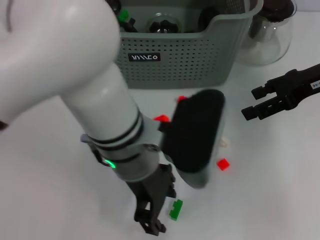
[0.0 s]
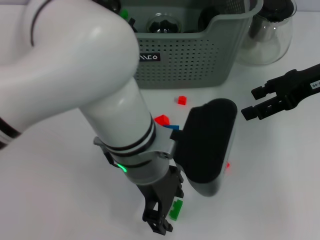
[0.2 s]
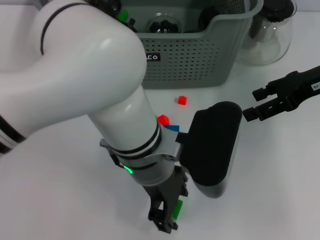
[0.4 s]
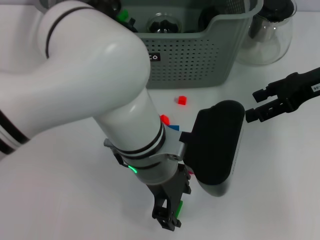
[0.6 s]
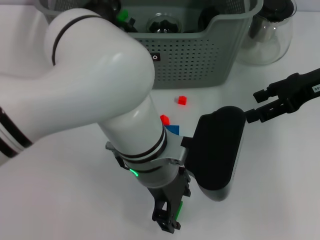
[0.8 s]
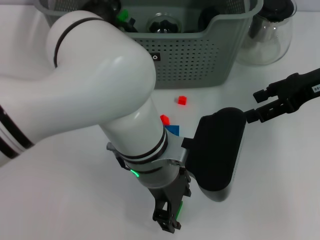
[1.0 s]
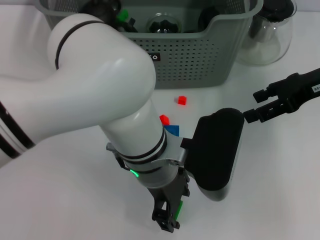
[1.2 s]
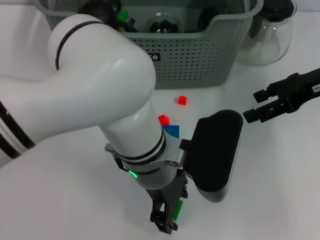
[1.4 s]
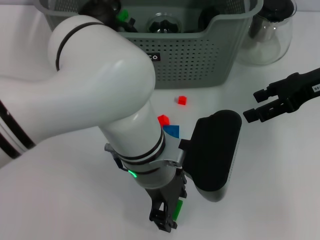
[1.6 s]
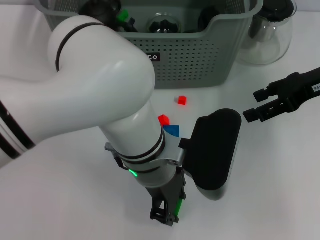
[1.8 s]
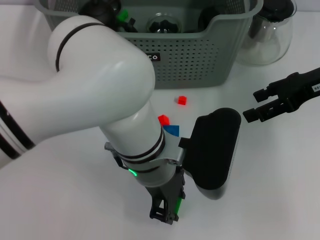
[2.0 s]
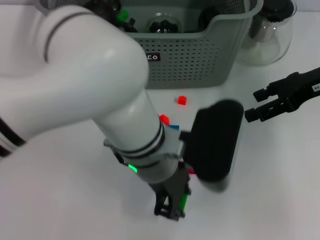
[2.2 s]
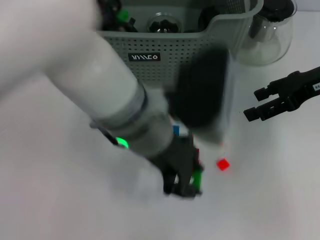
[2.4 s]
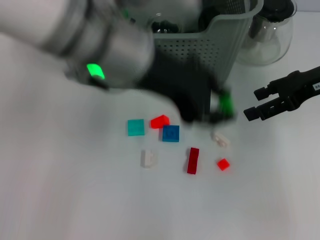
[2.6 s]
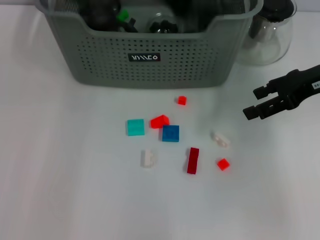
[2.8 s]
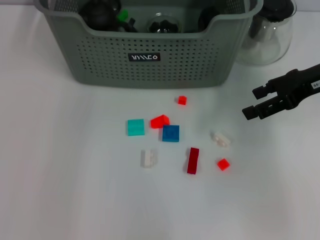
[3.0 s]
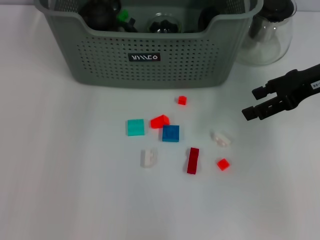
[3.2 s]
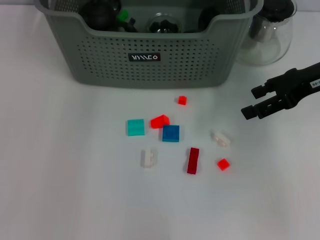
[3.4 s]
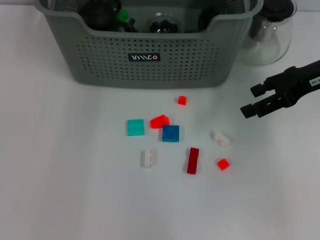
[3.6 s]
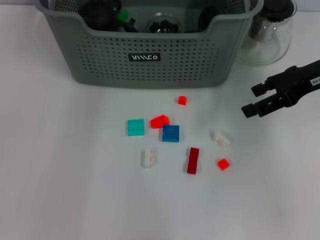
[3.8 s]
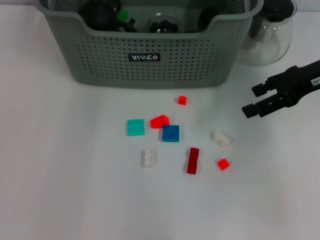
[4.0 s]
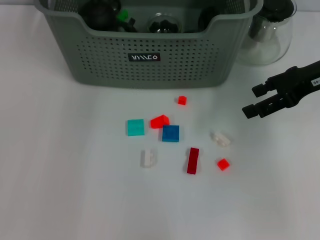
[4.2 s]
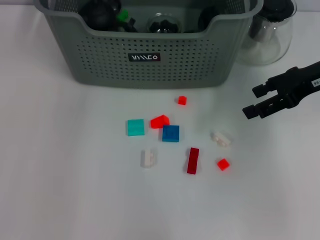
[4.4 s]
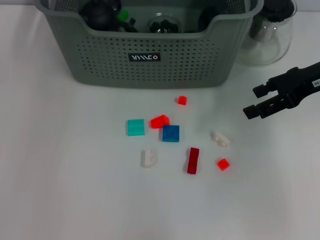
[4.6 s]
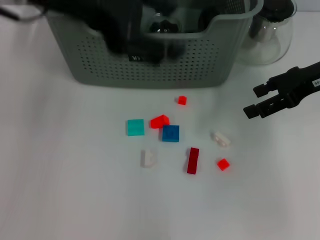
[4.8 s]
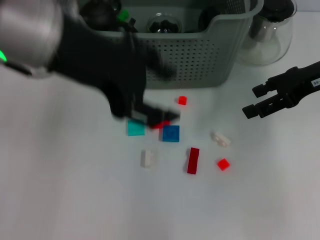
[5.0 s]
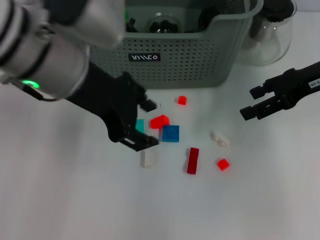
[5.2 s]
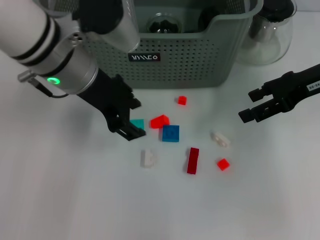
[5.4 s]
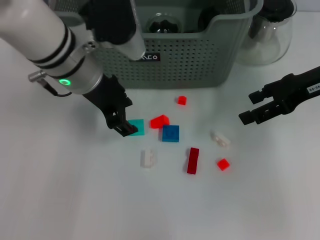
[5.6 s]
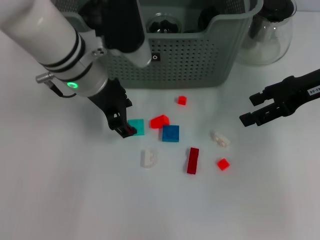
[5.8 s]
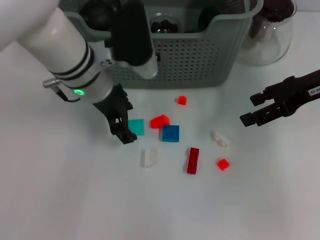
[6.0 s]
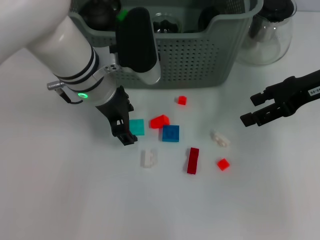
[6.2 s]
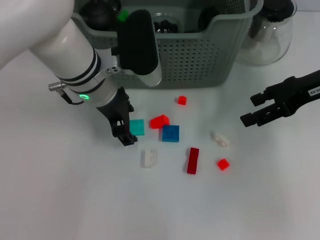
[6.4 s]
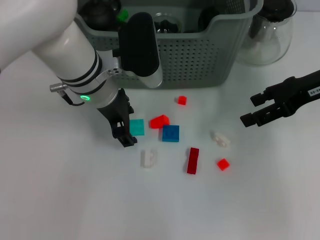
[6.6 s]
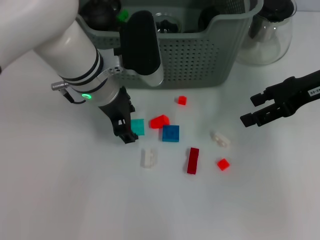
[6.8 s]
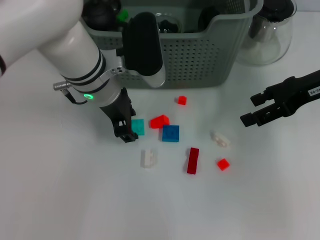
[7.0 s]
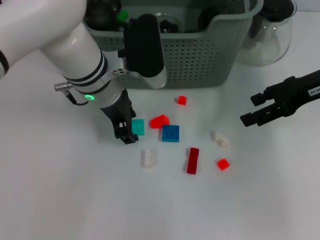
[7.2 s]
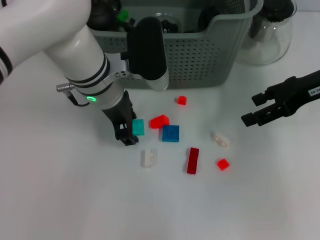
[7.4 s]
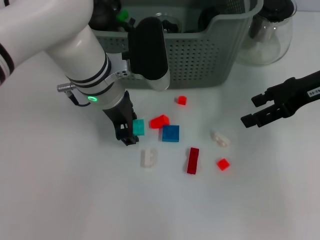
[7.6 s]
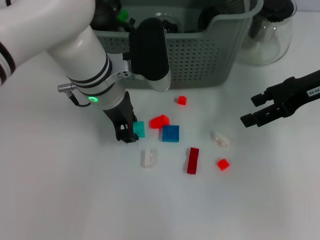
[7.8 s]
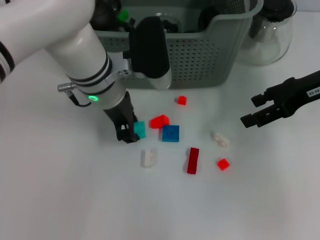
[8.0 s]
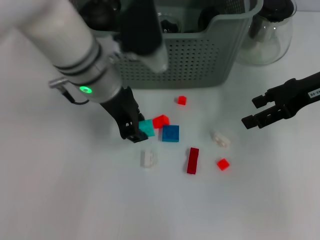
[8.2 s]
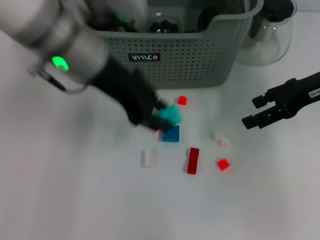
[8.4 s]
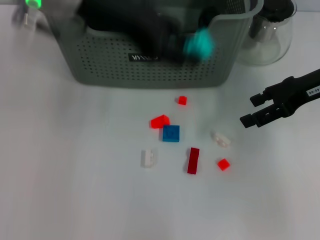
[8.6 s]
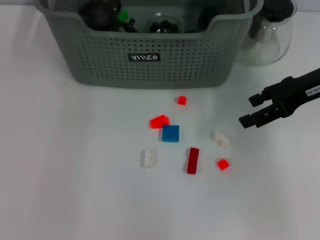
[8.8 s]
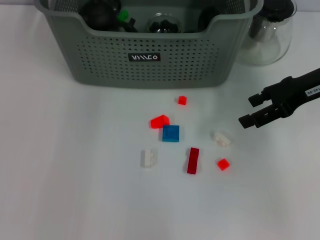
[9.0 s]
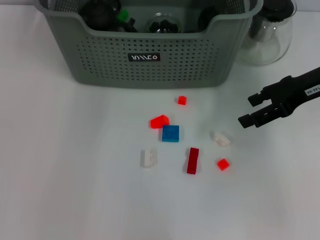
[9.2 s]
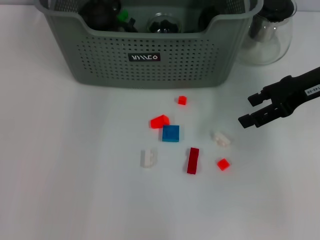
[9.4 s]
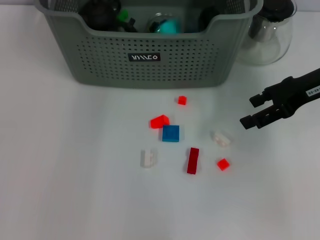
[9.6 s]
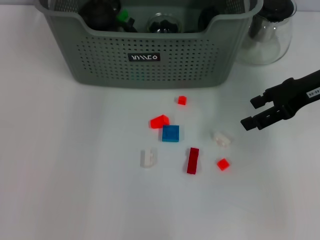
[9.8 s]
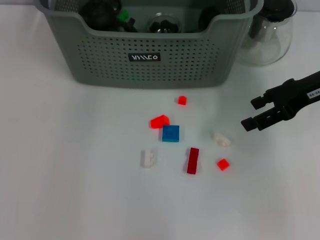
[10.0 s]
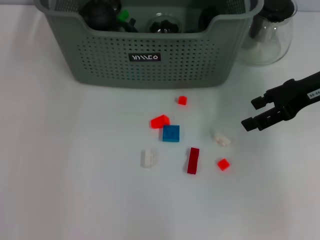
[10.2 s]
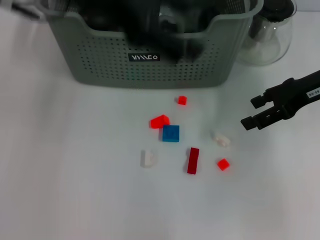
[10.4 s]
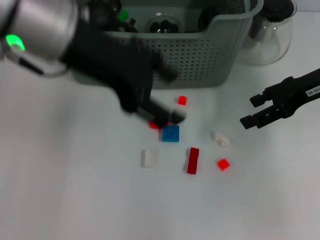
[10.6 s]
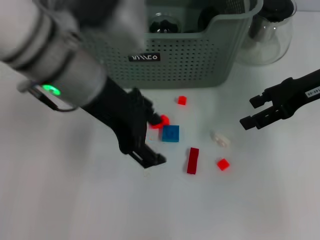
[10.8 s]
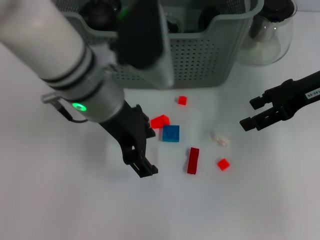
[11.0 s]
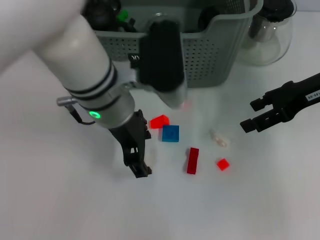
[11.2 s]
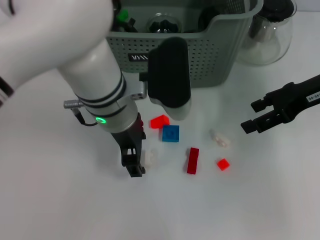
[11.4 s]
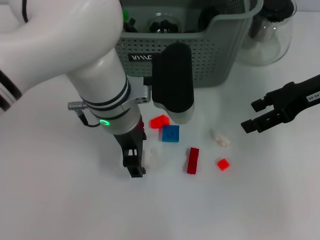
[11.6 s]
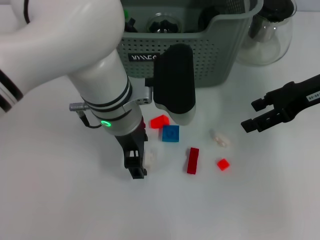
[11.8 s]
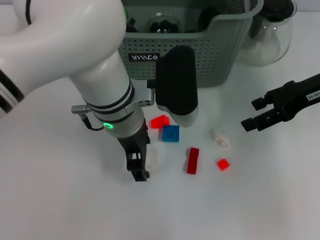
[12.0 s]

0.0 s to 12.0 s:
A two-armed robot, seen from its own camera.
Task of the whole recording: pick up the teacup on the table and place it into the storage bin, pick up the block on the table and place it into the storage bin.
Step, 0.0 to 1.8 s: Grasp the green block with left gripper.
Step, 2.0 to 3.8 s: Place the green block in the storage box with left gripper.
Step, 4.0 to 7.8 s: Grasp the light blue block with left gripper.
Step, 8.0 to 9.6 s: Place the light blue block in the storage box with left gripper.
1.6 to 3.0 s: The left gripper is displaced upward, forward and to the left by some 25 cm.
4.4 to 6.0 s: The left gripper is displaced downward and backward by some 15 cm.
6.0 to 7.6 s: The grippers make only small movements.
7.6 to 9.0 s: The left gripper is displaced upward by approximately 20 cm.
9.0 to 10.4 s: The left gripper is displaced backward by roughly 10 cm, and opens its fingers.
10.4 to 12.0 s: The left gripper goes roughly 20 cm downward and to the right.

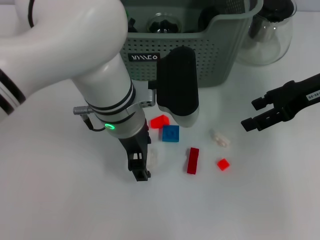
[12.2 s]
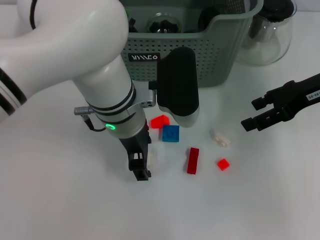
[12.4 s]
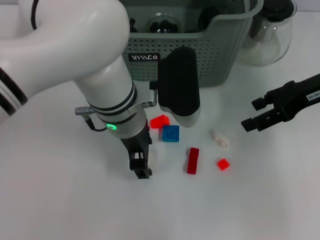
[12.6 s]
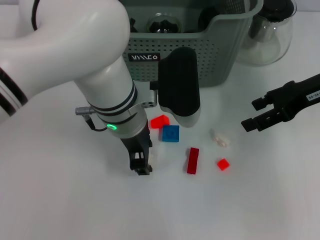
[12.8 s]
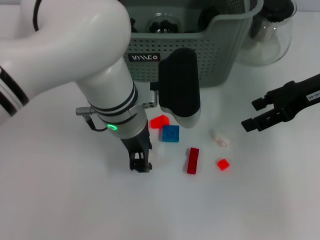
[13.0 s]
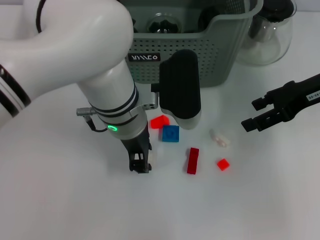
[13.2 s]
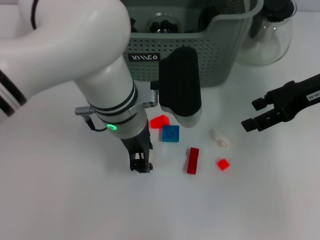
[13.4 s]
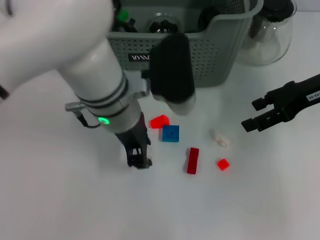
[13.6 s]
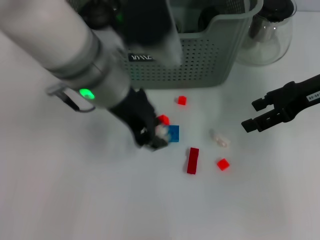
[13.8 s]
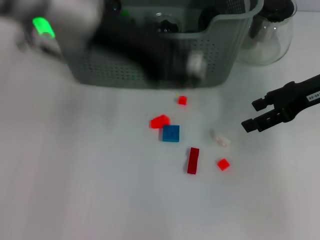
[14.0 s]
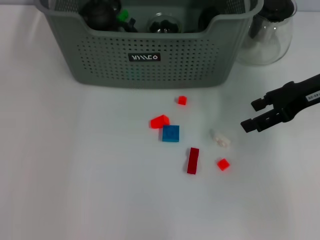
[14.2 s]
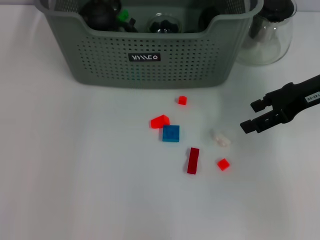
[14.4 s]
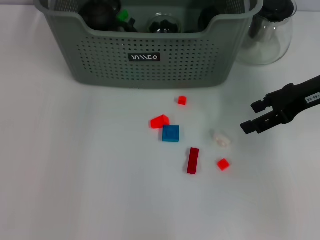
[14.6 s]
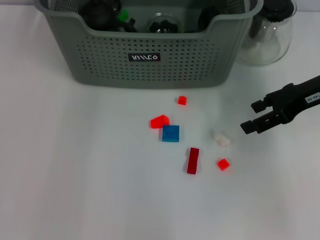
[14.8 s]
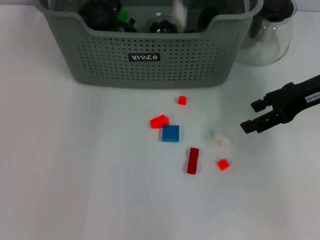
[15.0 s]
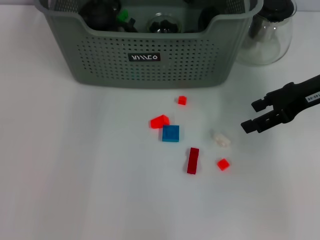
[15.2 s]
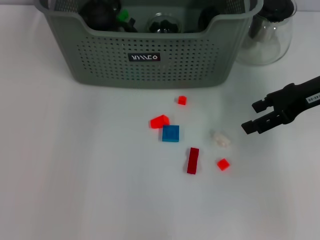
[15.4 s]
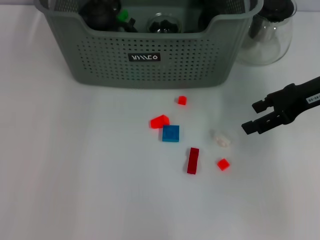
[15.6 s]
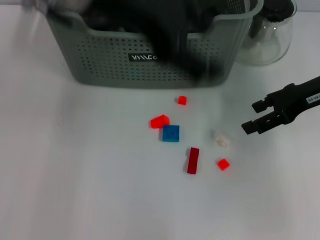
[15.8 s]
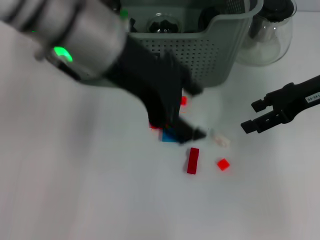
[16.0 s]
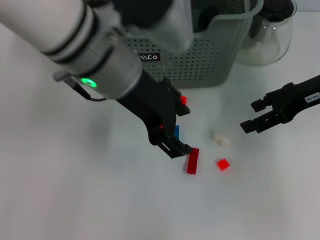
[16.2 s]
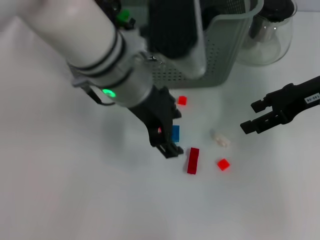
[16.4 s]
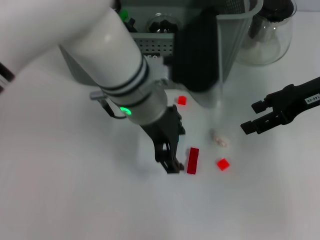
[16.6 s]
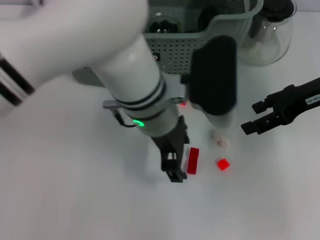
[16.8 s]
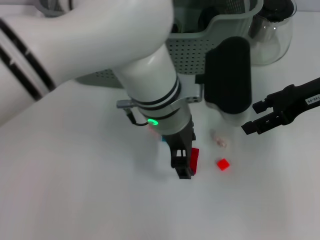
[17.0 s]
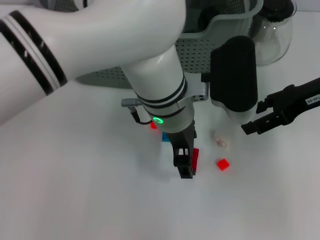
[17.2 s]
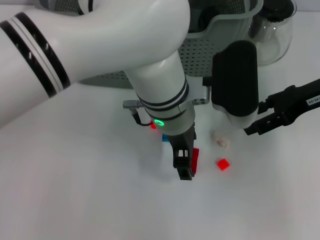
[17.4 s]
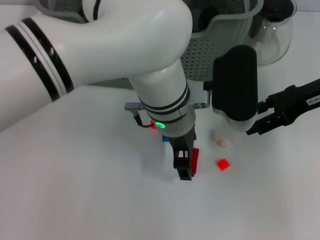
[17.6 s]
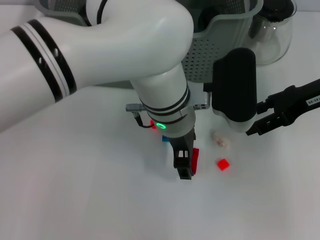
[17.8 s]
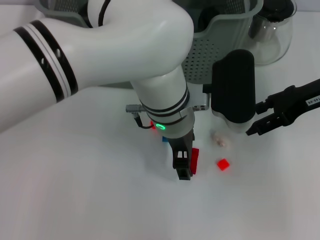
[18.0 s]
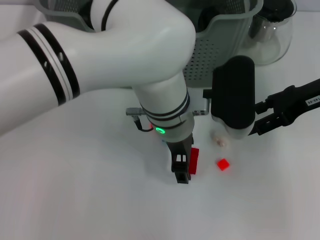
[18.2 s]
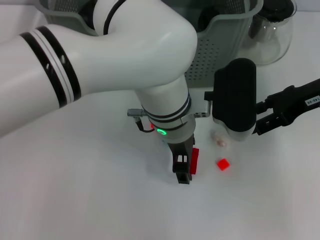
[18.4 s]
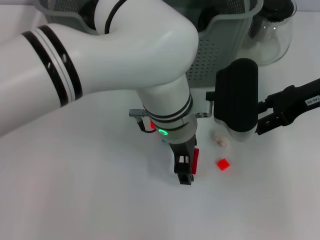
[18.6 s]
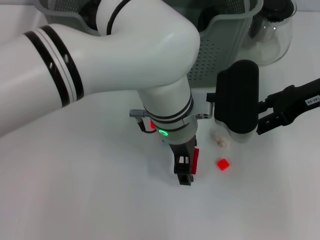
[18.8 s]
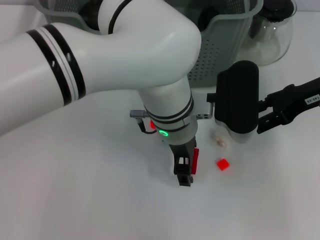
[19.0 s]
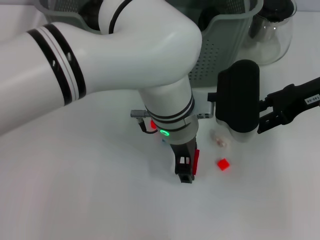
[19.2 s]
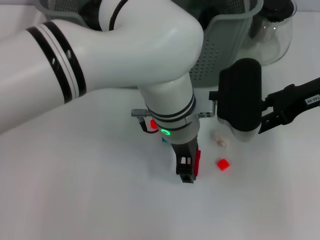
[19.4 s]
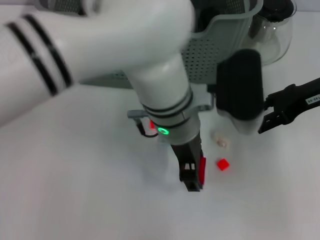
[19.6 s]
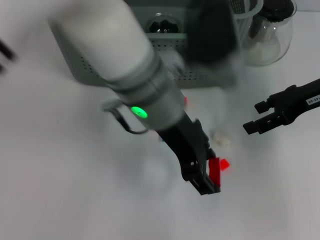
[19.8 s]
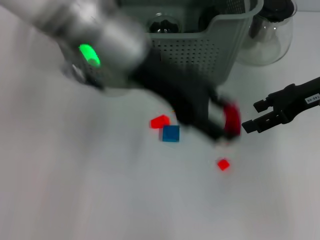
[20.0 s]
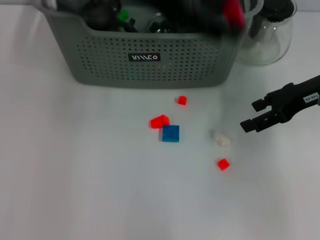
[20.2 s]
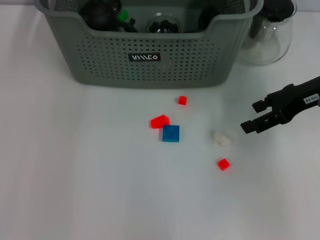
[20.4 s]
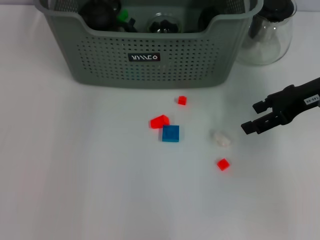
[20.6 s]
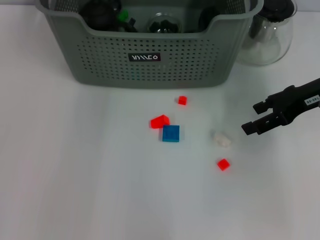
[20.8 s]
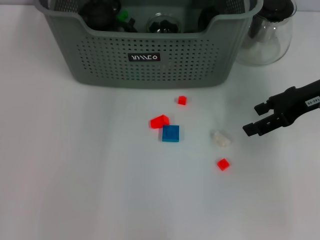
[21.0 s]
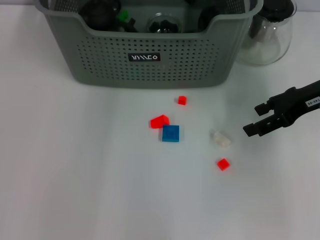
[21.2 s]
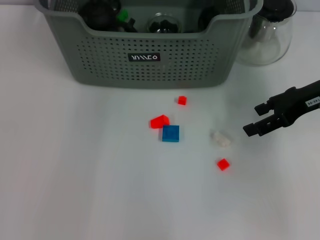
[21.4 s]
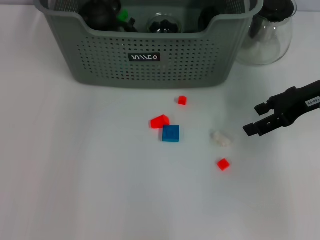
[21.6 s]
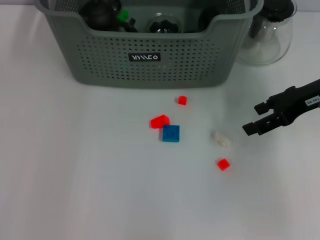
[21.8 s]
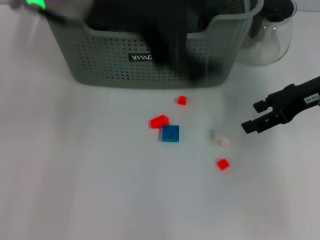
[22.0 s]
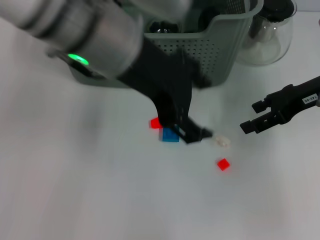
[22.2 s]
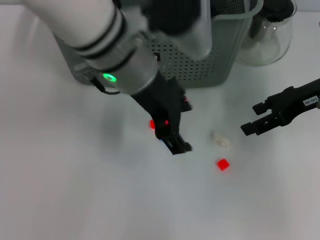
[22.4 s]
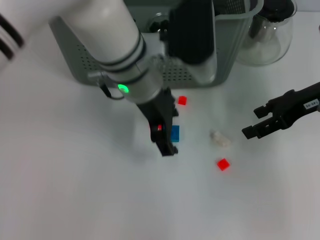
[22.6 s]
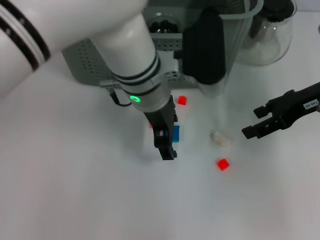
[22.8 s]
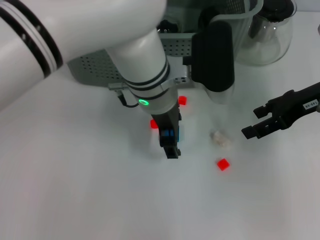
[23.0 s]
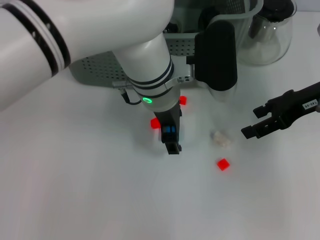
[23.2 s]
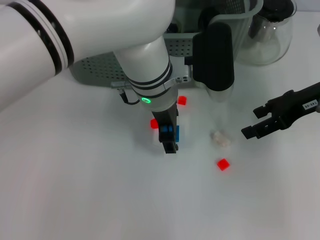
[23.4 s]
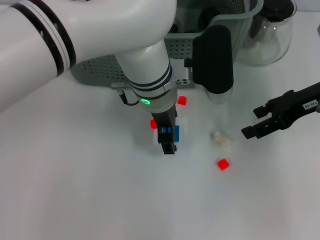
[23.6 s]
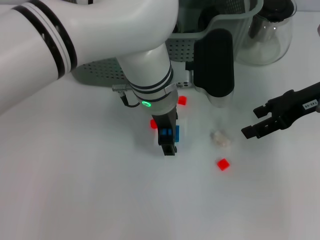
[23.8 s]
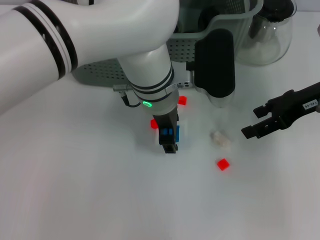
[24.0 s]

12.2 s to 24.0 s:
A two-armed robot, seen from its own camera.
Task of the whole recording: pick up the teacup on the table and place it into the storage bin, pick up the block on the table and place it into the storage bin.
Step, 13.4 to 15.0 s: Place the white block in the storage box with left gripper.
Step, 15.2 to 19.2 s: Grasp the red block with left gripper.
Step, 19.4 to 21.2 s: Place the red block in the storage box with left gripper.
12.2 to 13.6 s: The left gripper closes its fingers.
13.6 to 15.2 s: The left gripper goes about 15 cm forward and upward.
15.2 to 16.6 s: The left gripper goes some 15 cm backward, downward and to the right.
16.6 to 18.2 s: The left gripper ends up about 5 cm from where it was.
18.2 to 19.6 s: The grippers stay close to where they were, moving slightly.
19.6 to 21.0 s: The left gripper heads forward, upward and to the left, covering about 20 cm.
21.0 to 22.6 s: The left gripper is displaced backward and downward by about 15 cm.
22.6 to 24.0 s: The left gripper shifts by approximately 5 cm.
